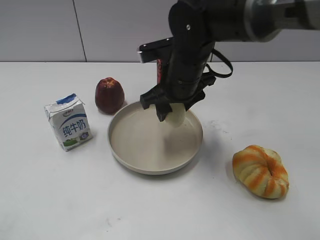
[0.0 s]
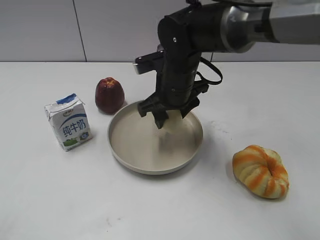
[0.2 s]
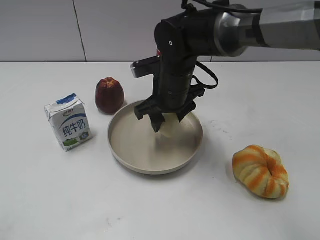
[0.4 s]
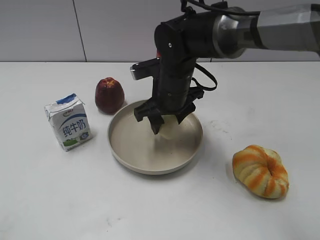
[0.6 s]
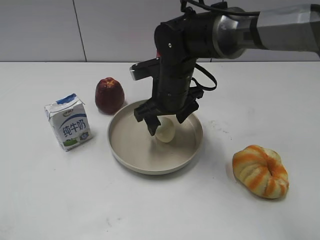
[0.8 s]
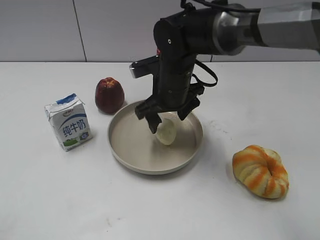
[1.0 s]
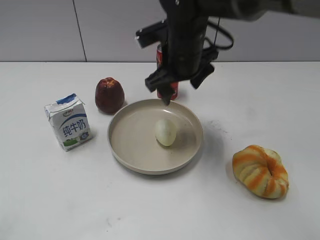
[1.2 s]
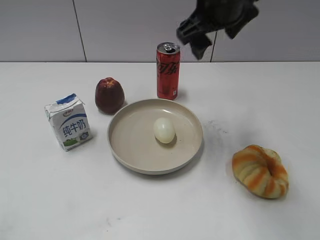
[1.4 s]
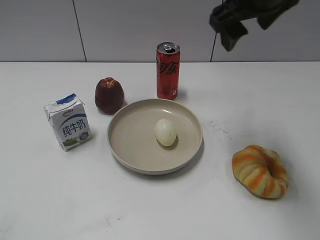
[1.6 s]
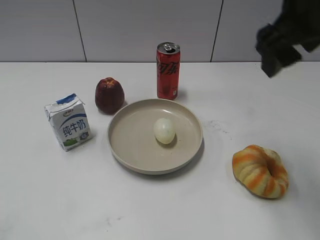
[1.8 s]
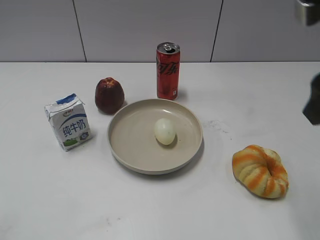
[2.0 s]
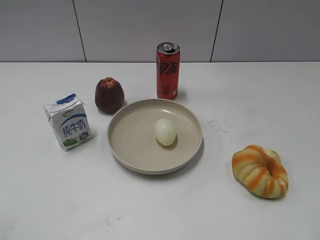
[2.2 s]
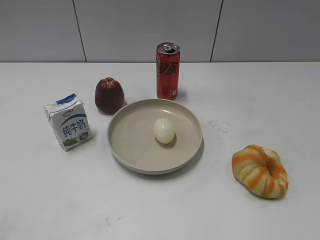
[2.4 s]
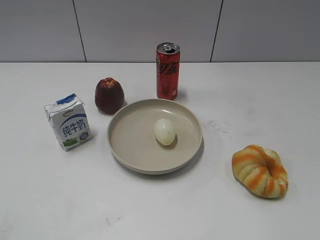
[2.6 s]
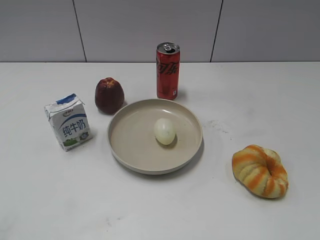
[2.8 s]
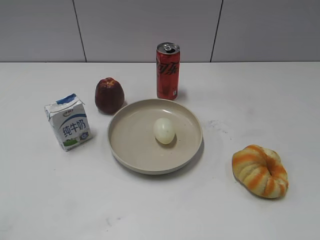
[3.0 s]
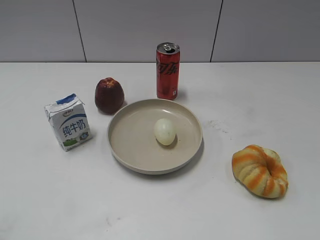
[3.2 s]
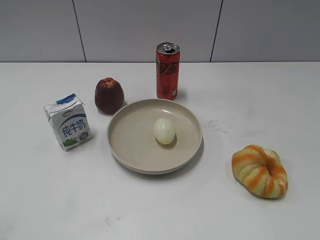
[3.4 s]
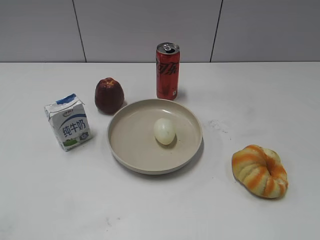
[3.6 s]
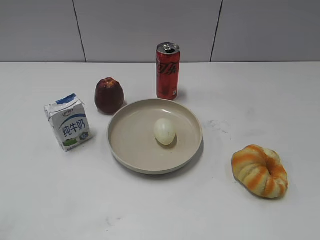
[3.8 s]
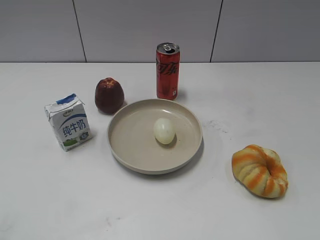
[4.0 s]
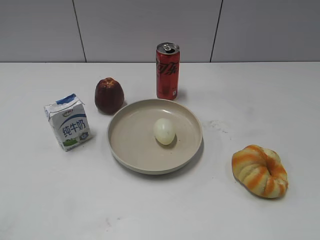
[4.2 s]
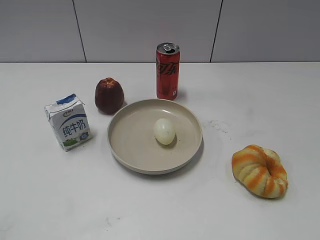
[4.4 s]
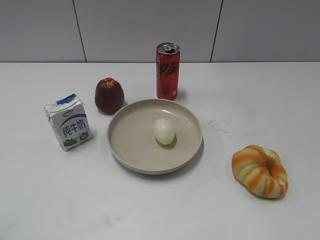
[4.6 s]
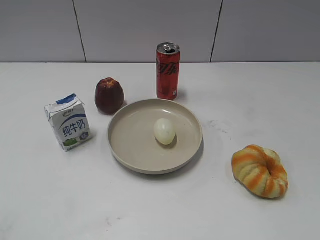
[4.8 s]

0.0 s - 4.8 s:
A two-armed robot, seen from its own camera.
Step, 0.0 s - 1.0 s: Place the egg on the plate with right gripper.
0.0 s - 1.6 s: The right gripper is displaced upward and to the right by approximately 20 cm, and opens.
1.6 s - 3.2 s: The right gripper shifts roughly 30 cm backward and to the right.

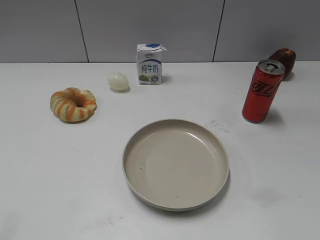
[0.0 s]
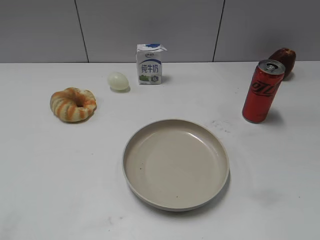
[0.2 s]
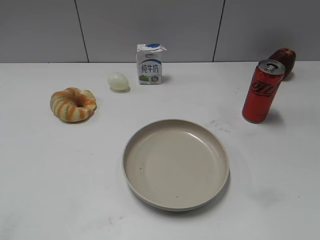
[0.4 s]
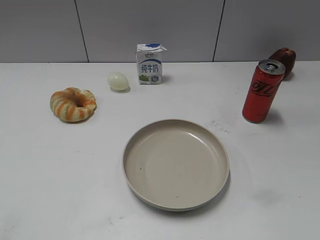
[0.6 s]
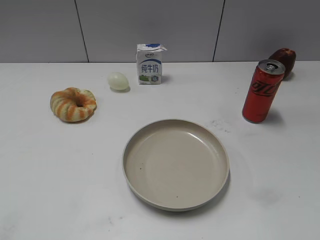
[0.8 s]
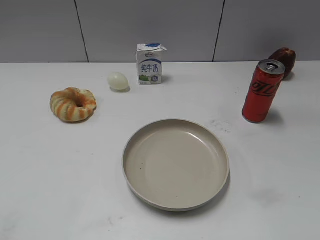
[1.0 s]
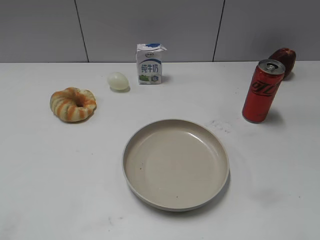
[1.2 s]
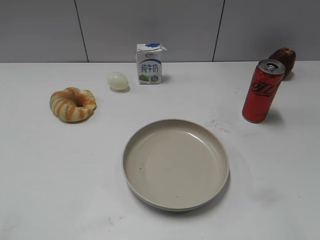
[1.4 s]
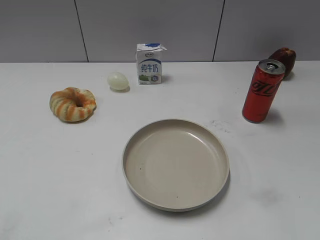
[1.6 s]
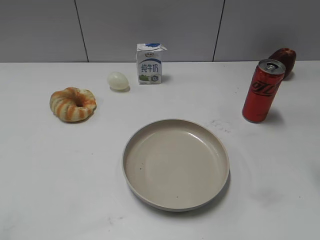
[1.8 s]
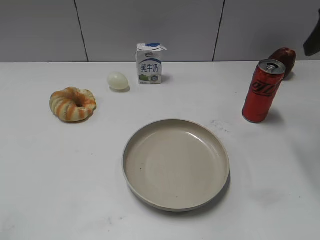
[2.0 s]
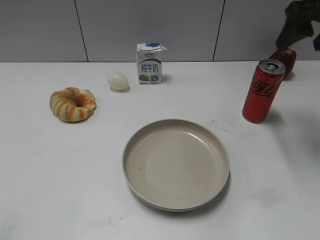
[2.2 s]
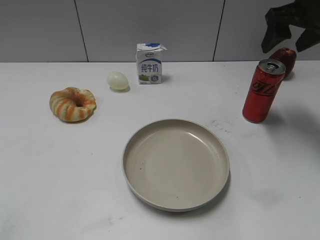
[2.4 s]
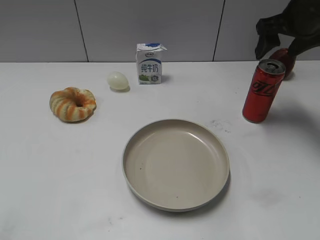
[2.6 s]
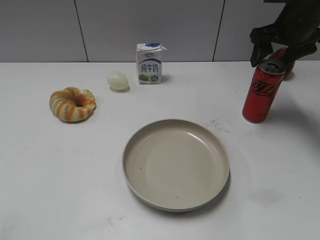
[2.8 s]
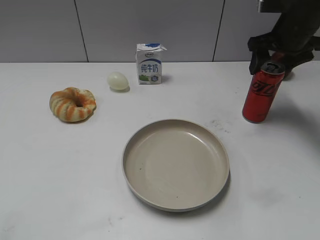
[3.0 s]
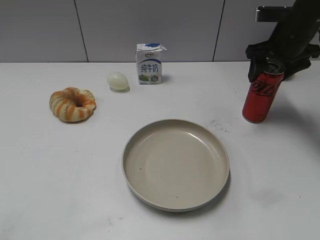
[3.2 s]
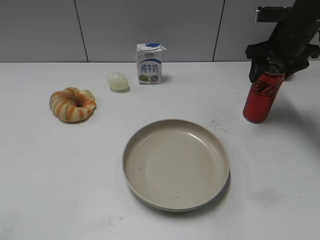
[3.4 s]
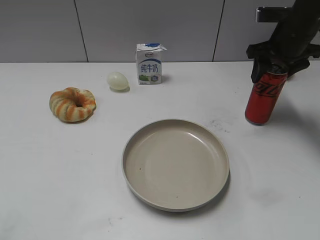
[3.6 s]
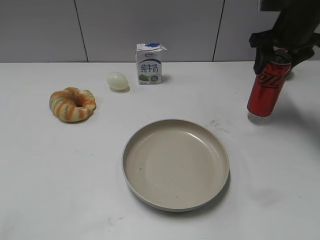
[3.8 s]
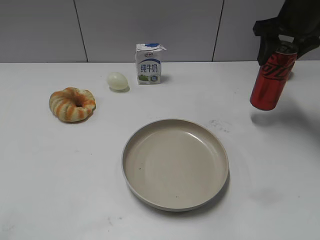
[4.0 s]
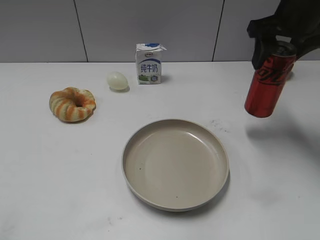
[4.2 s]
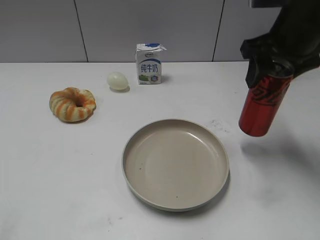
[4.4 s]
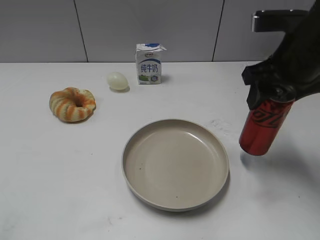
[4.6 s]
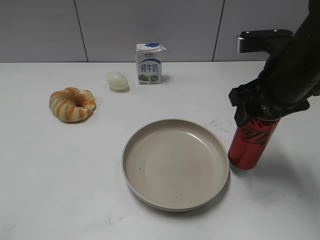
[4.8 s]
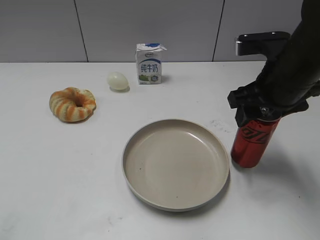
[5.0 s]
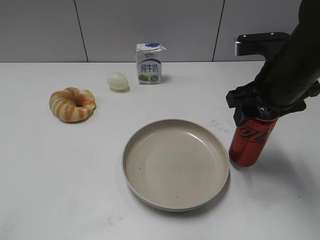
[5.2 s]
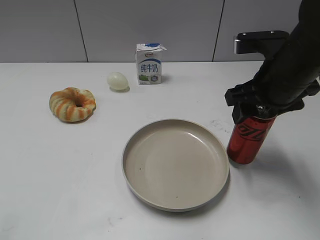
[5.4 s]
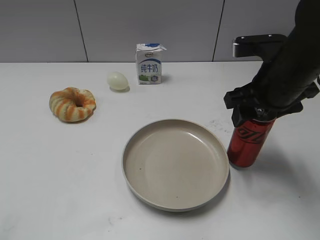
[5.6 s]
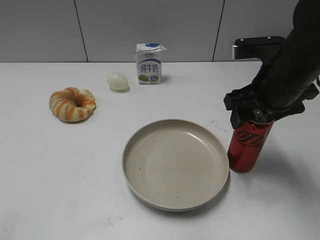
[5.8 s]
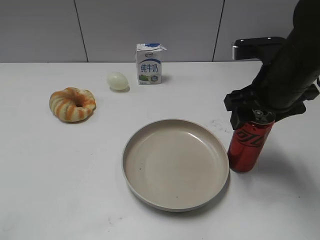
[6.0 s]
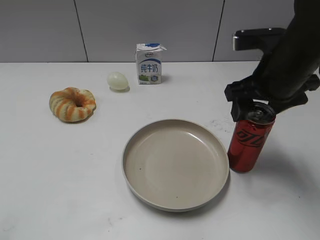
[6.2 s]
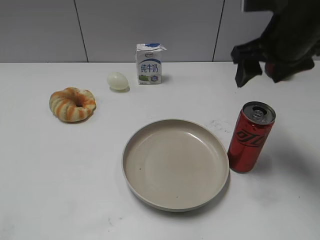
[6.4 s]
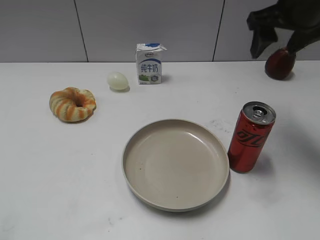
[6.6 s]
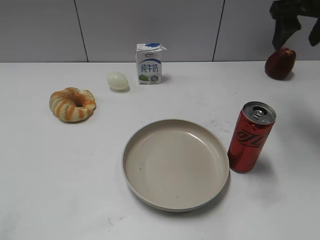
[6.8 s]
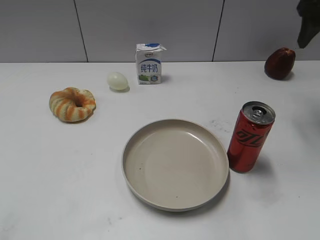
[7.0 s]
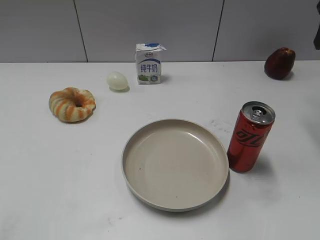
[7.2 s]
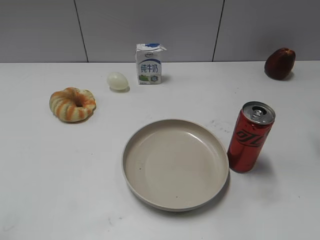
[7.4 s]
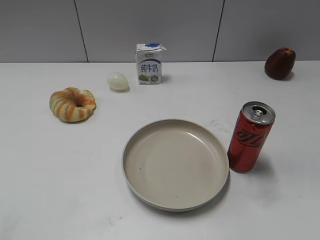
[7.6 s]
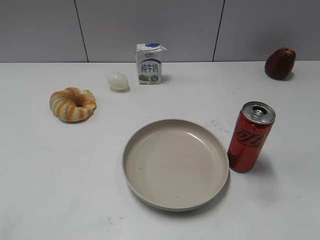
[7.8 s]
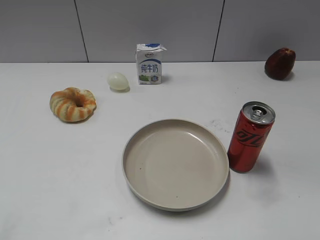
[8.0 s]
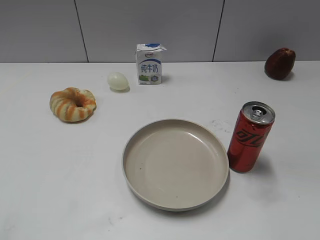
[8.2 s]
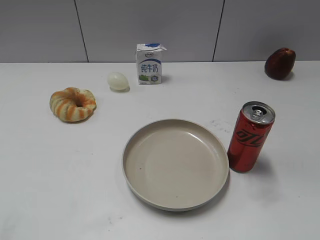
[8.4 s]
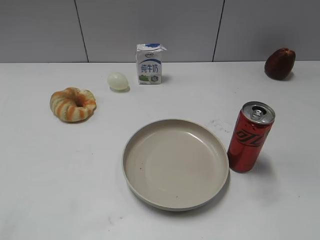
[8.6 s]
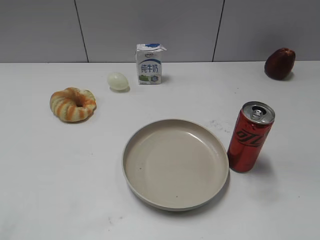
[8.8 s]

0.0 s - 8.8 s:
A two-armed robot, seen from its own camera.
Step, 1.0 s - 3.4 s: Grasp the cola with right gripper.
Step, 3.6 s - 6.2 s: Place the cola on the table with right gripper.
1.4 s - 3.0 s: The right gripper goes roughly 30 cm forward.
3.0 s - 4.4 s: The right gripper goes some 10 cm backward and upward, and closes up.
4.4 s - 5.8 s: The right gripper heads downward, covering about 5 cm, and opens.
5.8 s - 7.4 s: The right gripper shifts about 20 cm to the right and upward.
